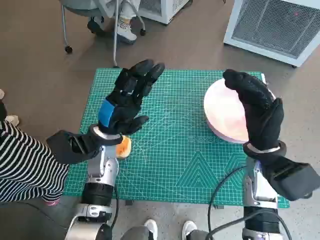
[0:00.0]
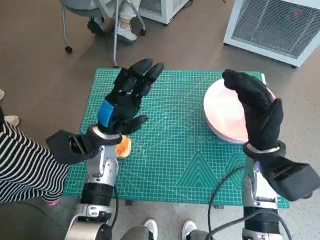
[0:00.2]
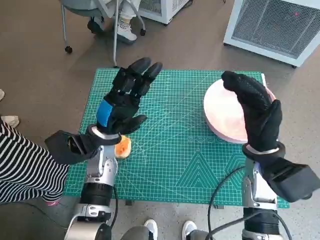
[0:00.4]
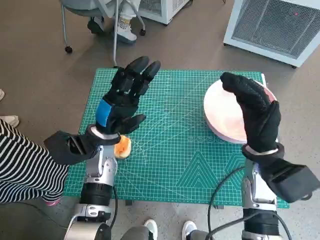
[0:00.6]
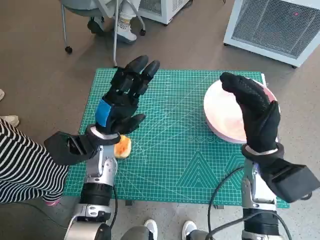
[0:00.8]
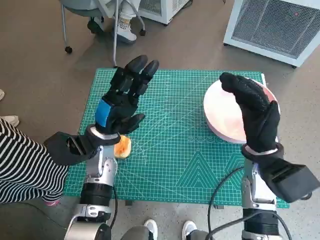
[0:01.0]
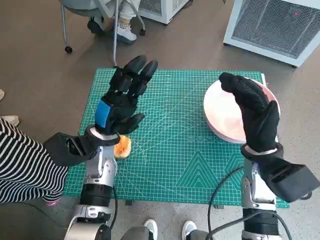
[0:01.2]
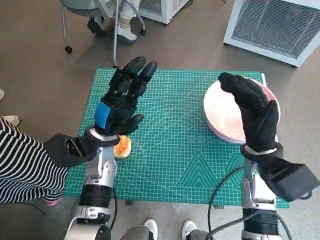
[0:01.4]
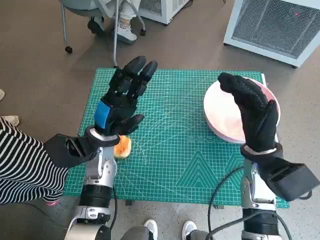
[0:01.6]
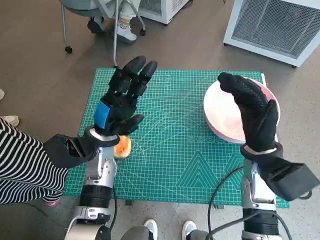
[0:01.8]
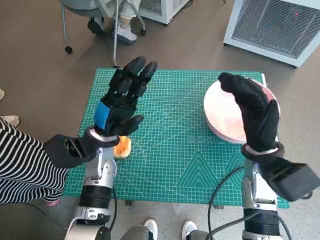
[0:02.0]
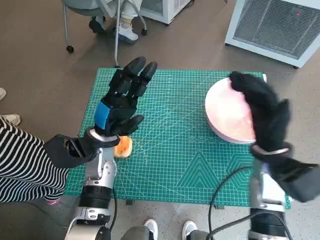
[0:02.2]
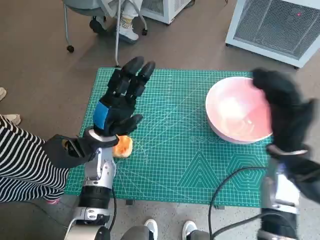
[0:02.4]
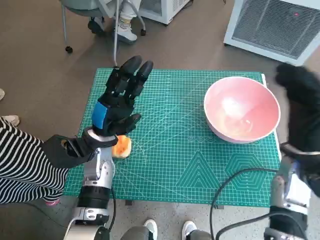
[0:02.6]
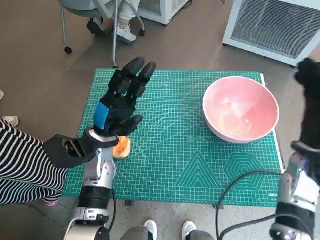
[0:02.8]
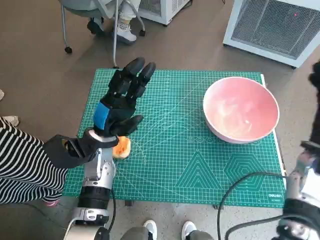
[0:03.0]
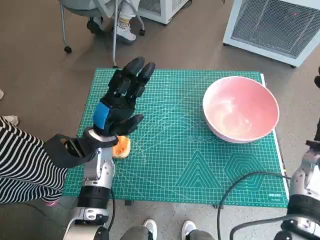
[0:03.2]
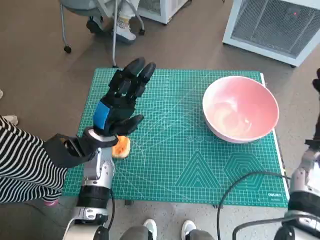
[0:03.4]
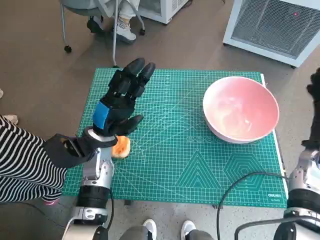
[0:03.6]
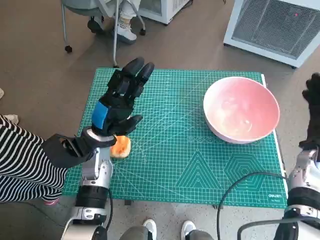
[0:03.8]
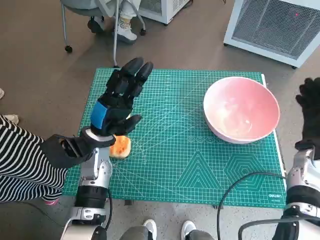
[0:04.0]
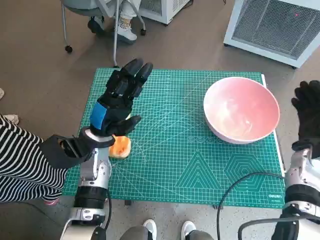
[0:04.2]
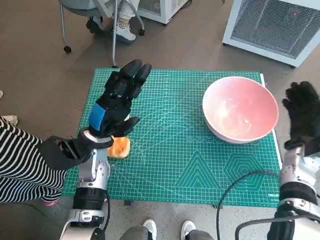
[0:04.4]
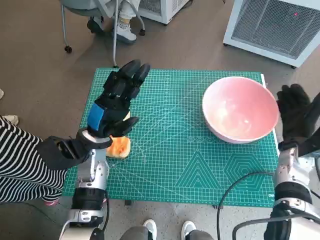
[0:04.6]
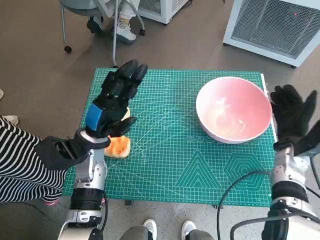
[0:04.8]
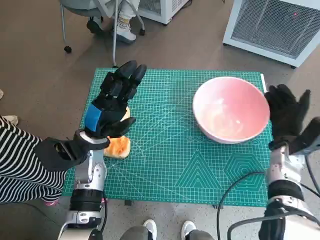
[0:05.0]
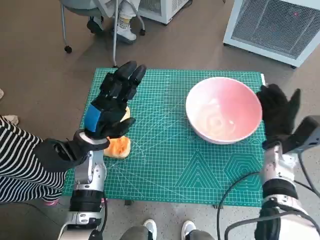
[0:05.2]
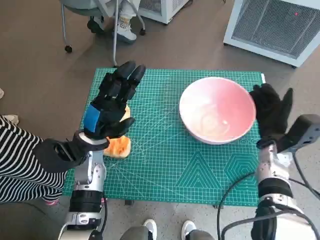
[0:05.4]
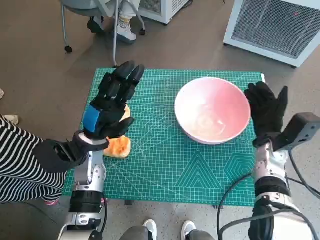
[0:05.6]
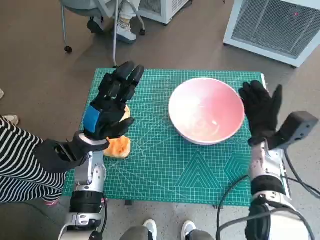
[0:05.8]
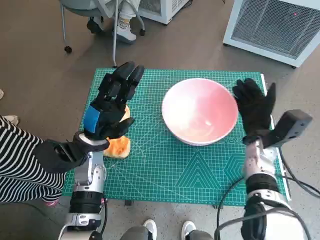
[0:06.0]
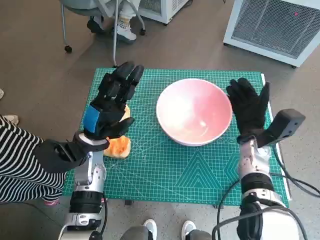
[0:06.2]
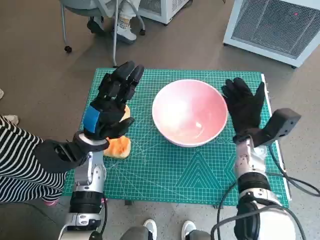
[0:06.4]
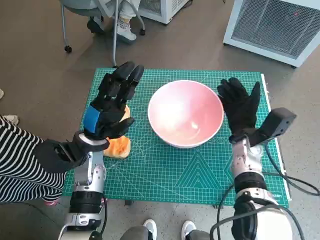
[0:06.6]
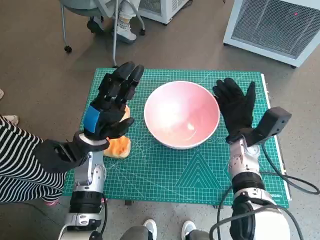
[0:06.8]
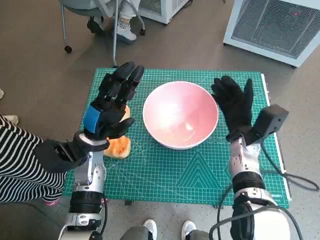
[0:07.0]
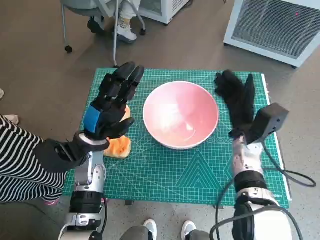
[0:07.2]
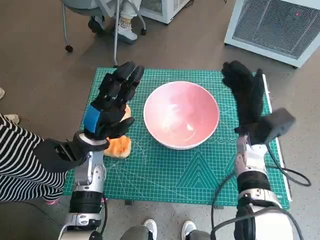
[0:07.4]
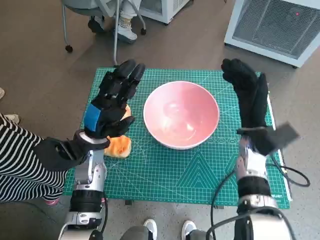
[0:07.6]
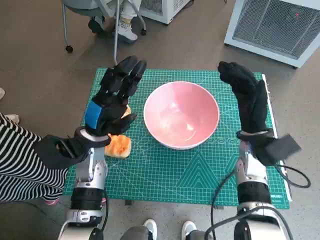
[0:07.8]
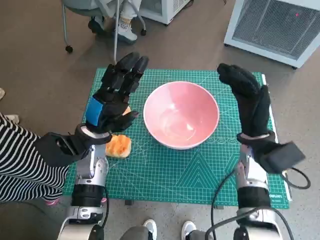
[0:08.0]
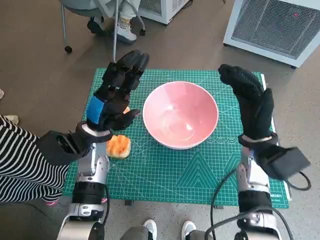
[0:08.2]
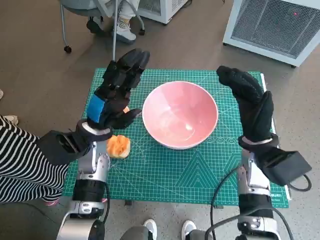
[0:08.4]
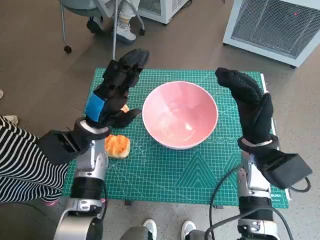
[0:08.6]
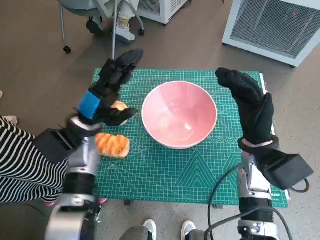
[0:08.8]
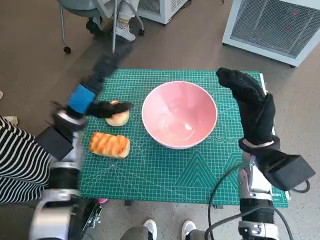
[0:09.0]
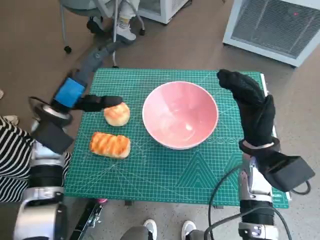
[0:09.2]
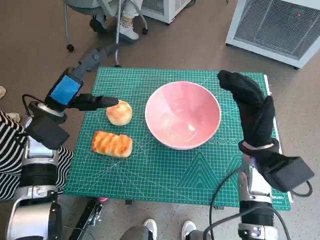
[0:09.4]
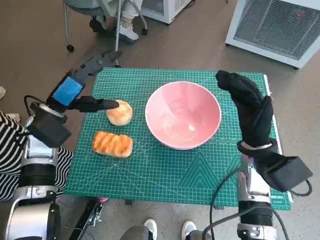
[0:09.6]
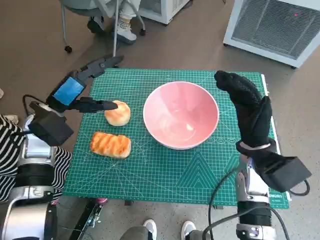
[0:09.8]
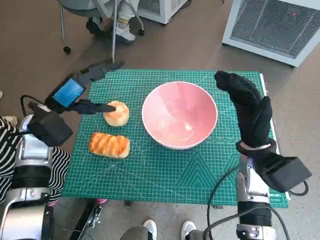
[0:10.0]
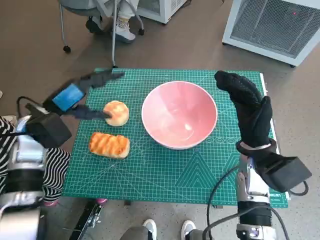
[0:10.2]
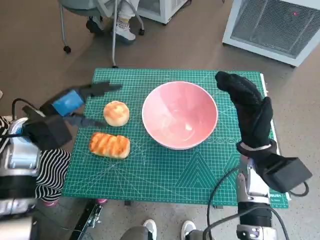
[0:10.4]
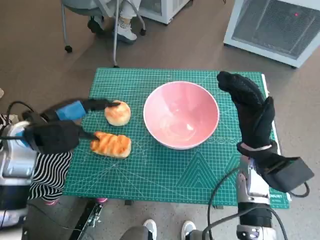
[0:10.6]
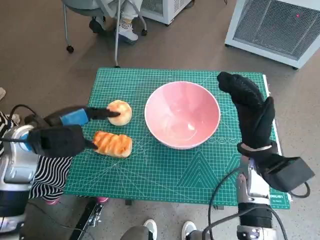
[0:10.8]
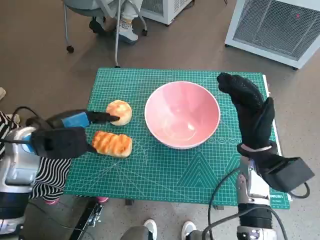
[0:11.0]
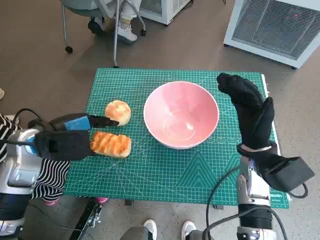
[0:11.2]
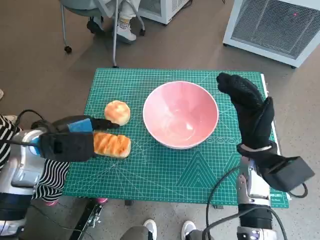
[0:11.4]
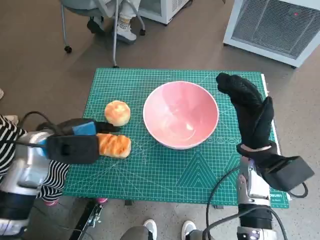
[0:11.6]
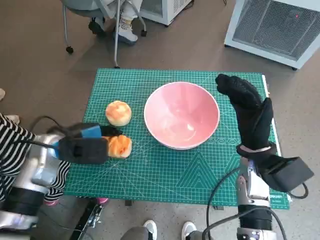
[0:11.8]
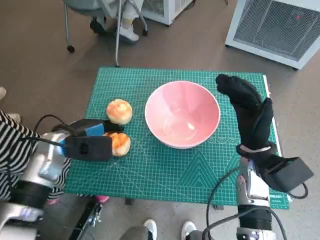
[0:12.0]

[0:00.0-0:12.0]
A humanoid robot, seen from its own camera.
Task of the whole recording: Push the bowl into the center of the table and put the bread into the bowl.
Step, 0:00.0 to 0:07.2: Move the pink bowl to the center of table with right hand.
0:01.6 to 0:03.0: The right hand heads to the right, covering about 10 cm.
0:03.0 to 0:04.4: The right hand changes place by approximately 5 cm.
0:04.4 to 0:06.0: The right hand travels to the left by about 10 cm.
0:07.6 to 0:09.0: The left hand changes place by about 5 cm.
0:09.0 to 0:10.4: The left hand moves to the left, approximately 5 cm.
0:10.4 to 0:12.0: The left hand shifts roughly 5 cm downward.

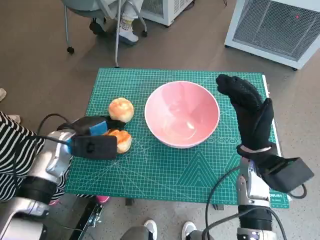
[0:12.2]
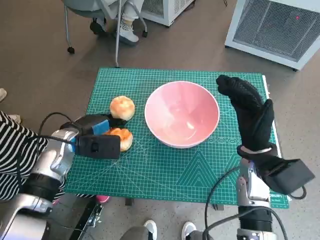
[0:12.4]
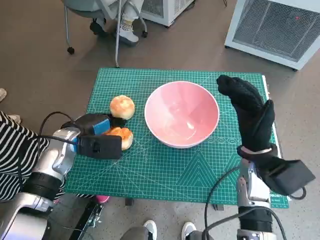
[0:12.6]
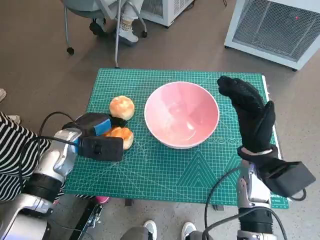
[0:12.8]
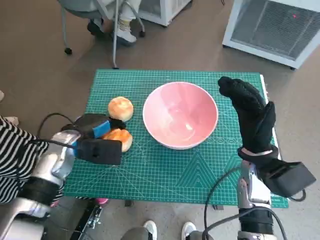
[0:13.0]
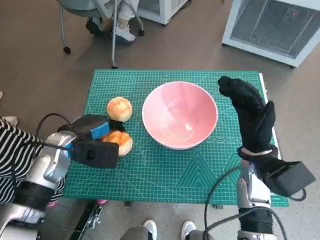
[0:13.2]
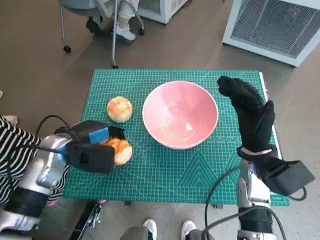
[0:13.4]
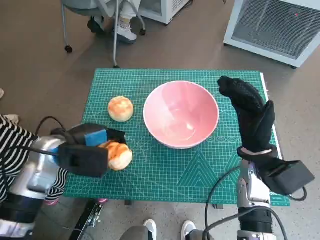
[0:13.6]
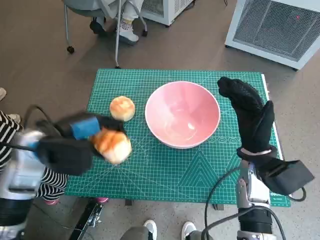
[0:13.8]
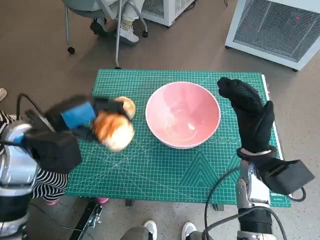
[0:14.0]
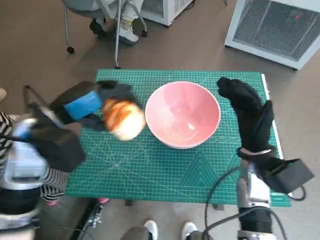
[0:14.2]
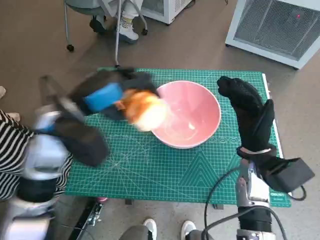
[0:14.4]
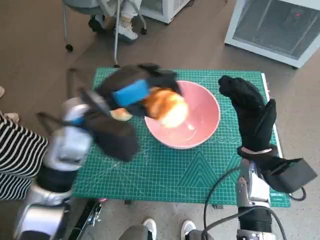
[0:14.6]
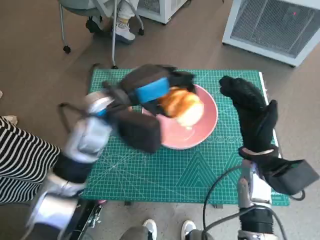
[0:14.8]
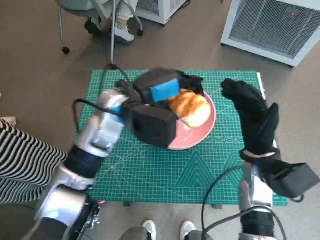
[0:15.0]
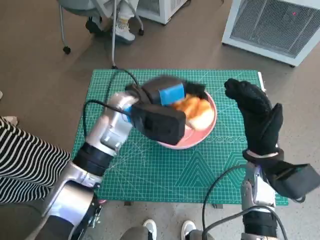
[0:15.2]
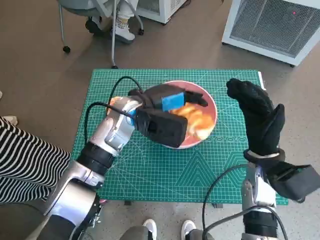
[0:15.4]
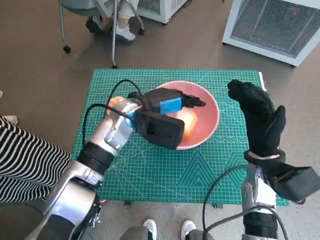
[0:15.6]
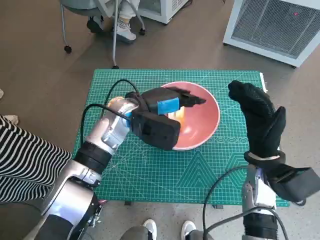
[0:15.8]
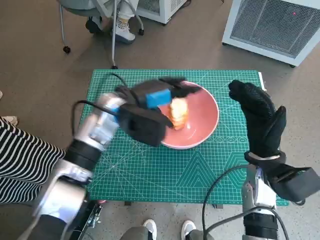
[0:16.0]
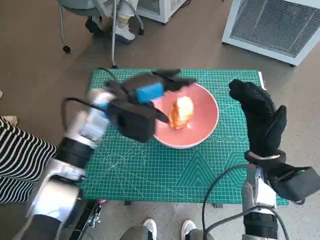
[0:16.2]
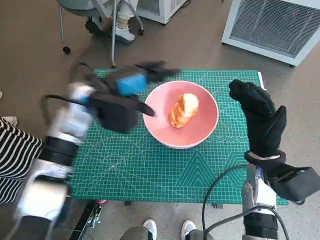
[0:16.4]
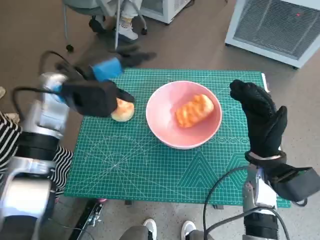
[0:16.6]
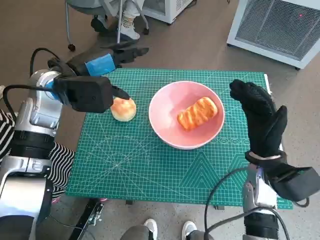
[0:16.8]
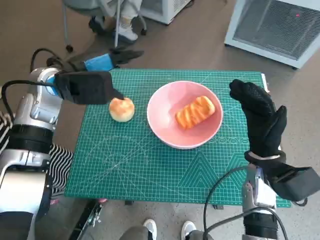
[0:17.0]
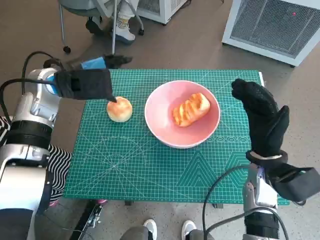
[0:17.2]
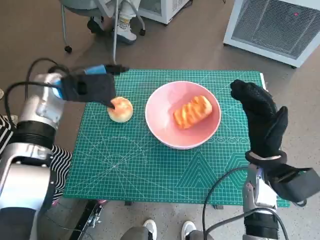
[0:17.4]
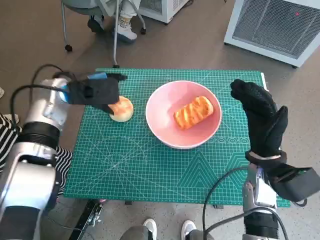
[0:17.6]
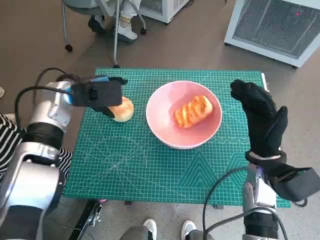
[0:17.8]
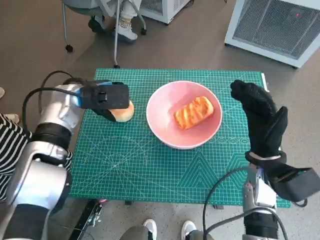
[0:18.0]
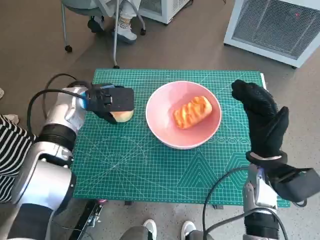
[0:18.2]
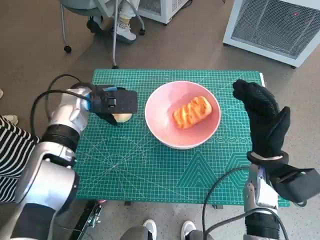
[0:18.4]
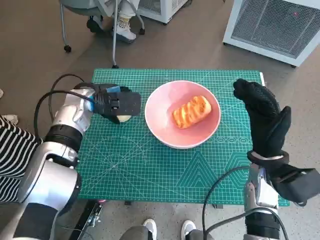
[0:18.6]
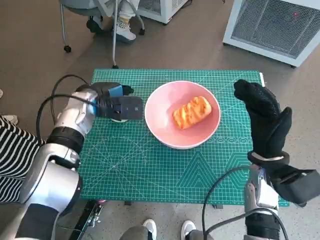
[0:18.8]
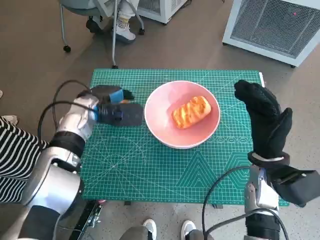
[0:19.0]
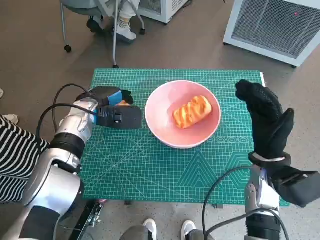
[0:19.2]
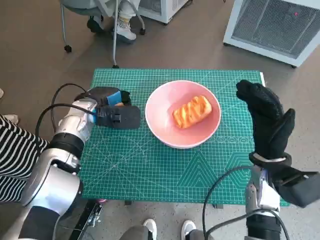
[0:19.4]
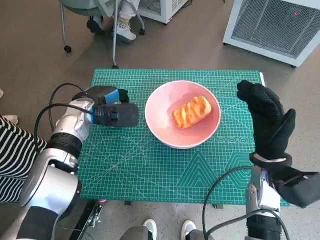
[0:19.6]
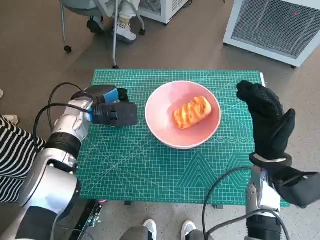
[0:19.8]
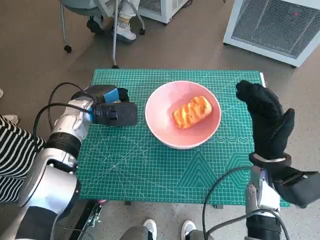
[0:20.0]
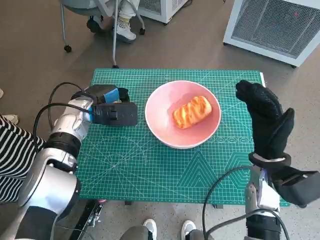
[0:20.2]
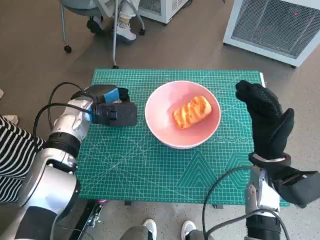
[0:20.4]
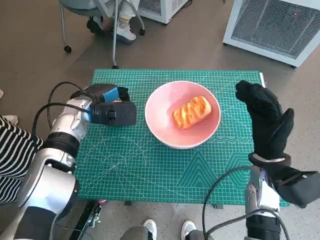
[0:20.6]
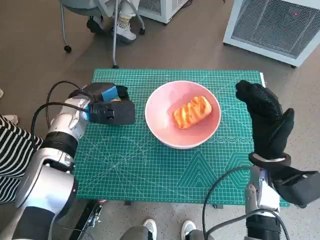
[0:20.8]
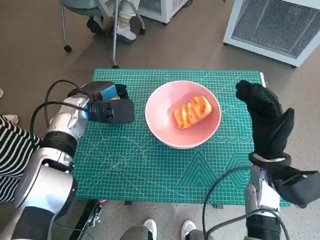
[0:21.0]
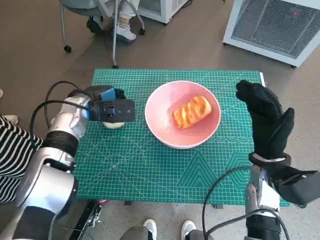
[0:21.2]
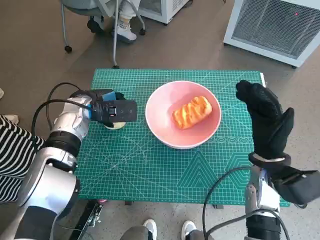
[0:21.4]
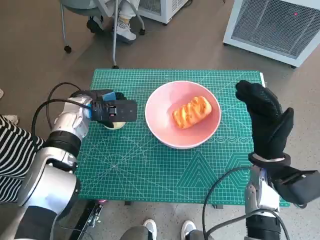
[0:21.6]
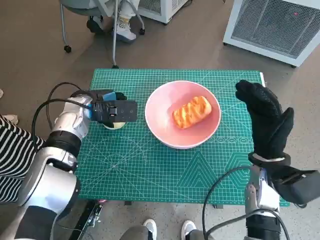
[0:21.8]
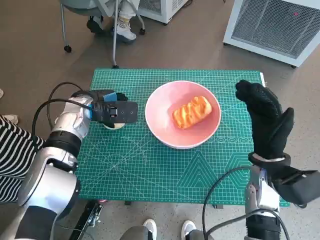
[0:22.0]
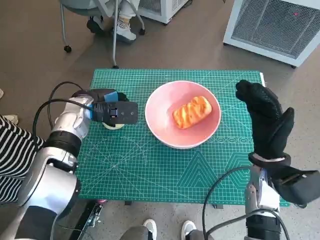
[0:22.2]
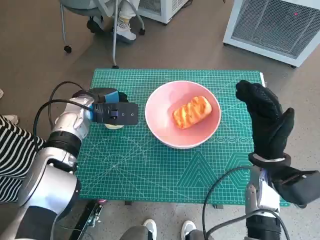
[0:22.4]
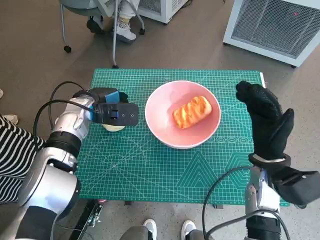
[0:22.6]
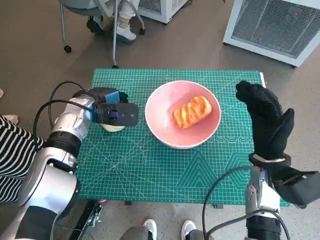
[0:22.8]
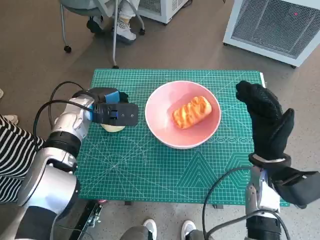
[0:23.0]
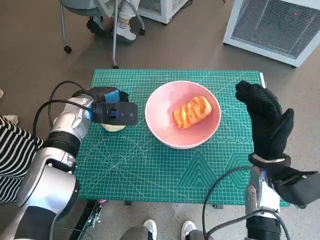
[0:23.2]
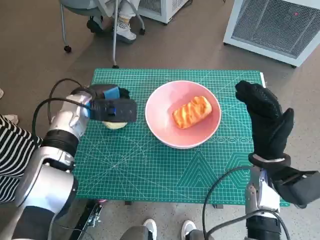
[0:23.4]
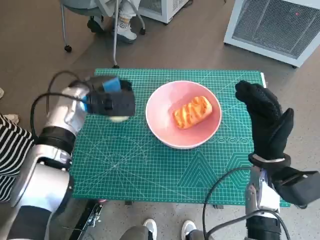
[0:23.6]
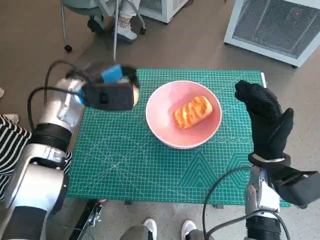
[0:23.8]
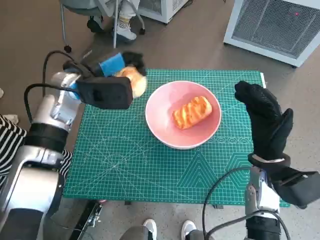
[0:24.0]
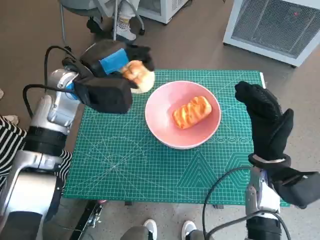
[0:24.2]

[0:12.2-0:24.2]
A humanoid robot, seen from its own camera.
Task of the whole recording: Push the bowl into the center of the table and put the bread into the bowl.
Step, 0:12.6 to 0:16.2: Place the long bread in pink bowl with left hand.
Step, 0:16.4 to 0:19.4: Grasp the round bread with left hand.
0:12.2 to 0:13.8: The left hand is displaced upward by approximately 5 cm.
0:13.8 to 0:15.2: The left hand goes about 15 cm to the right and forward.
0:15.2 to 0:16.6: The left hand moves to the left, roughly 10 cm.
0:16.6 to 0:18.2: The left hand is displaced downward by about 5 cm.
0:18.2 to 0:19.8: The hands make only small movements.
0:19.8 to 0:21.2: Both hands stay about where they are.
0:21.2 to 0:22.6: There are only small adjustments of the hands.
0:22.6 to 0:24.2: The left hand travels upward by some 10 cm.
